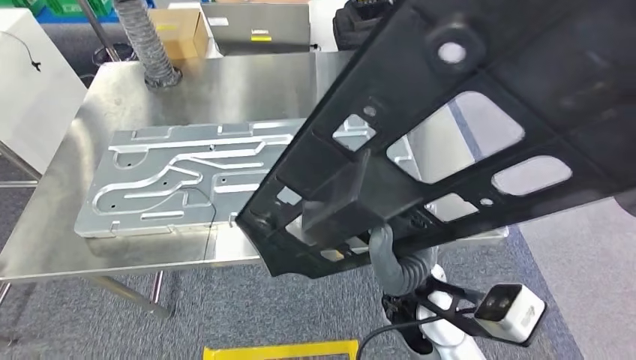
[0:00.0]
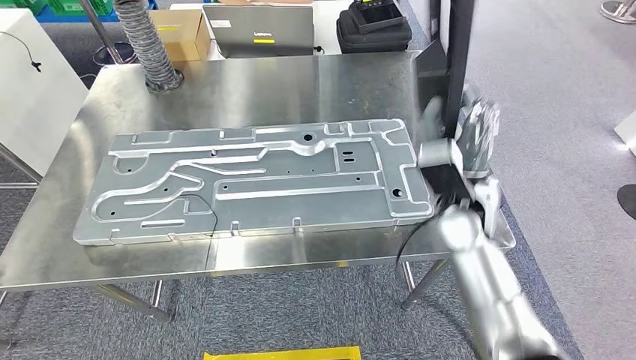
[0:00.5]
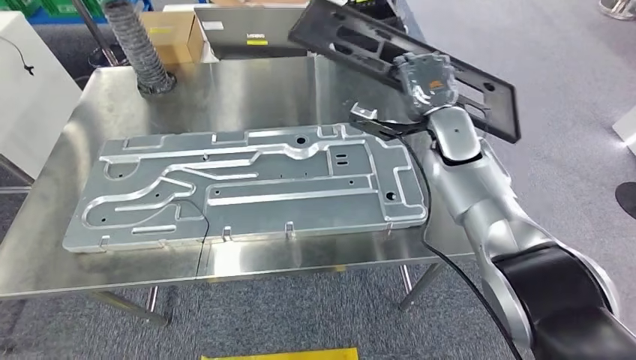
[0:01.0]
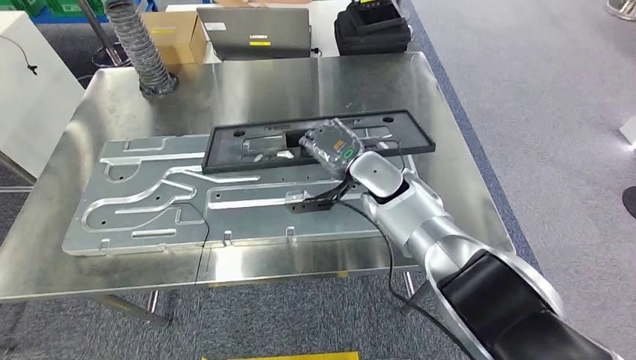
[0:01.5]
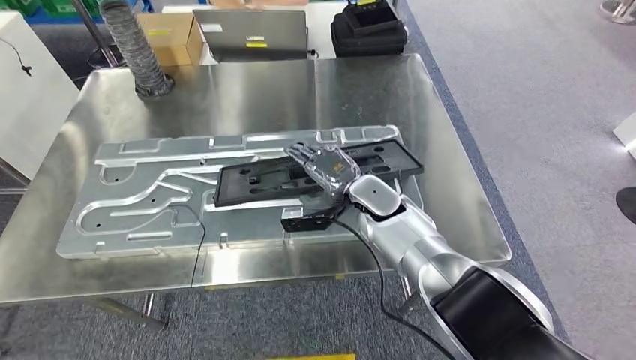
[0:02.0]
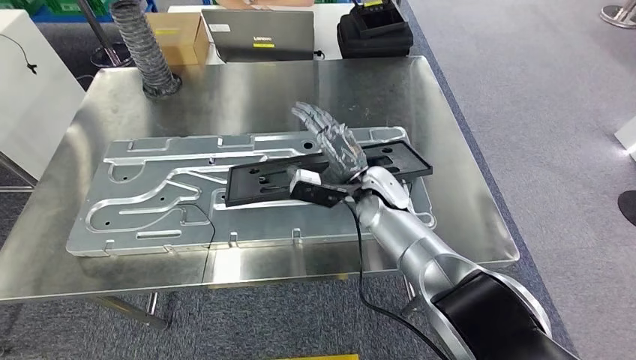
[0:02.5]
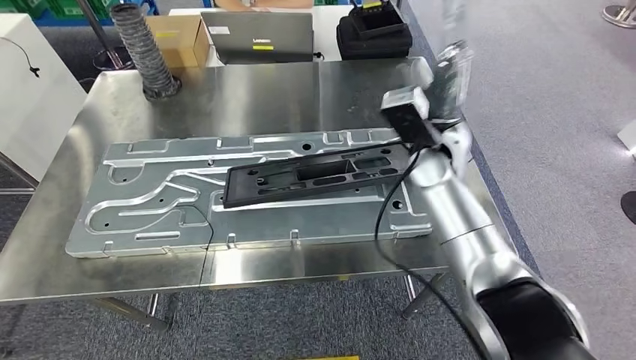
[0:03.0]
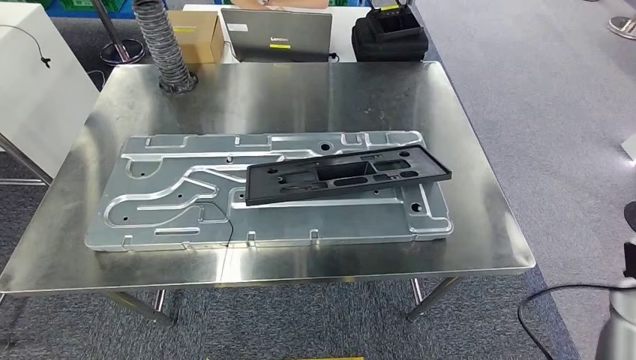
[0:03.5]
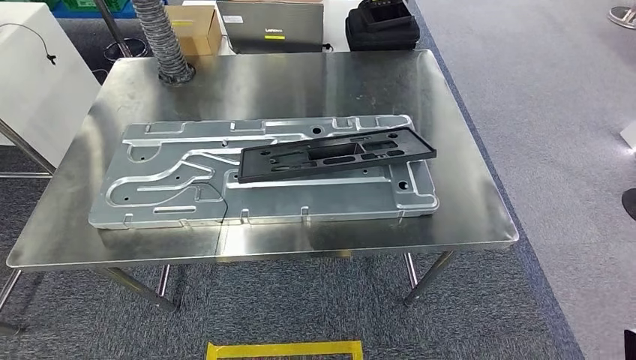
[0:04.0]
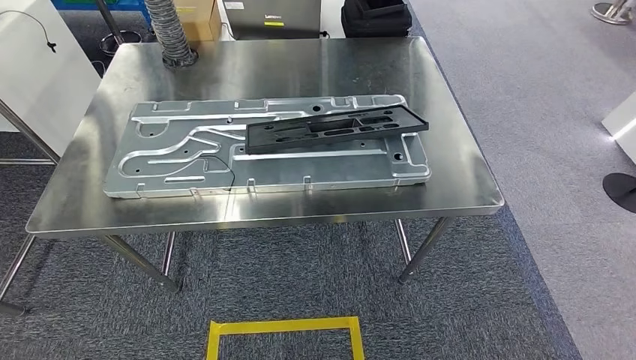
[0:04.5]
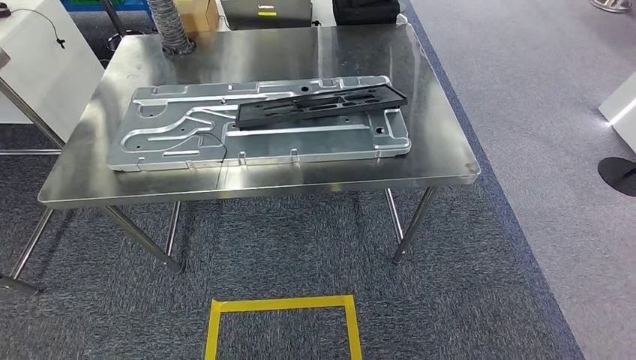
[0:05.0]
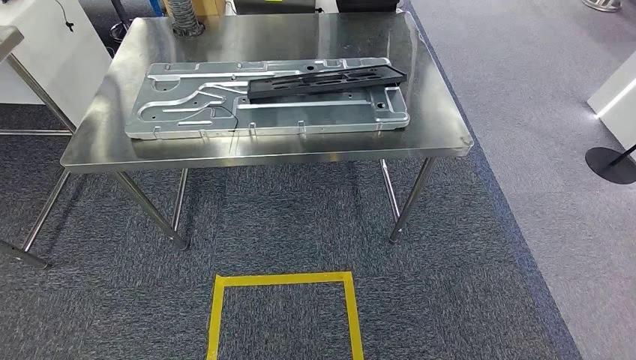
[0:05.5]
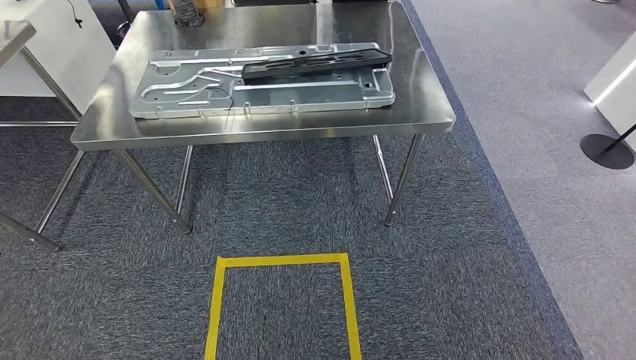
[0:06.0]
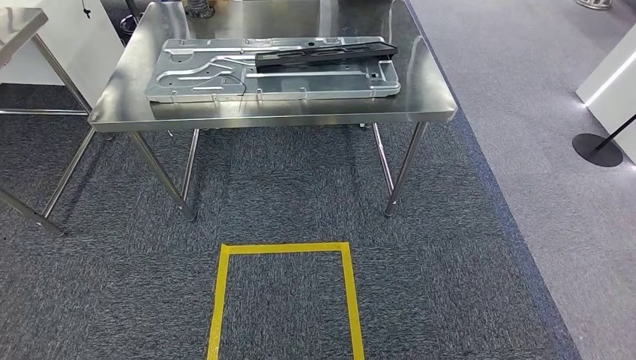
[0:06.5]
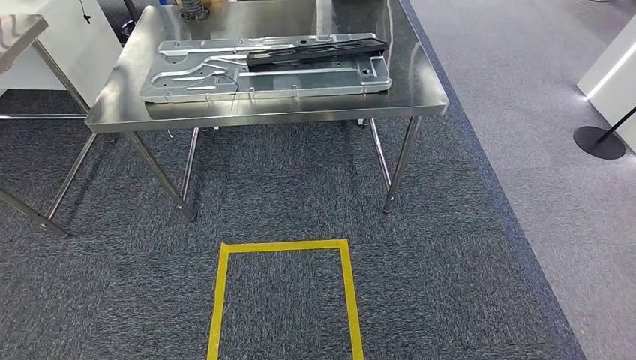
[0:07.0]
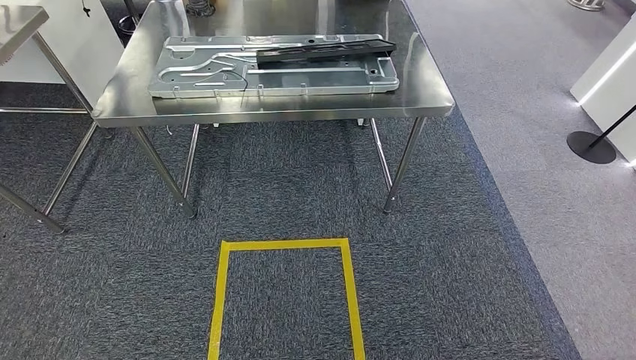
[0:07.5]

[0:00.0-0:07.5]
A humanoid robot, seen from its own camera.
Step, 0:00.0 to 0:04.0: Insert the large material into the corresponding slot on the workbench.
Step, 0:04.5 to 0:07.5: Move to the initial position of the shelf.
